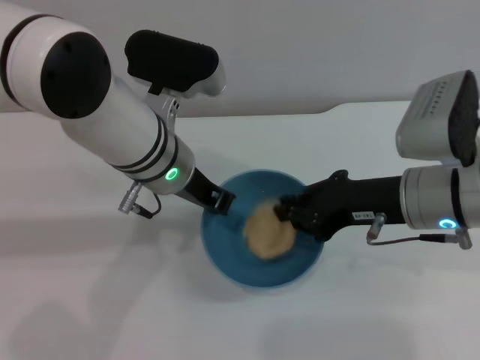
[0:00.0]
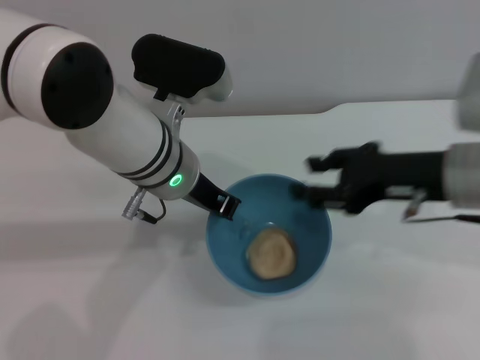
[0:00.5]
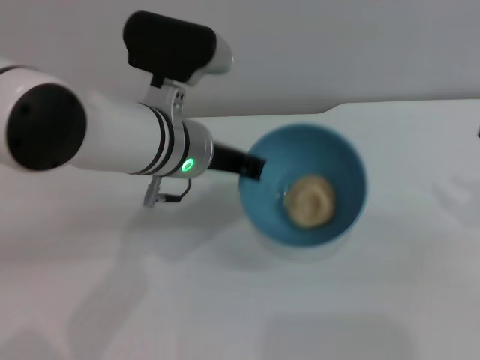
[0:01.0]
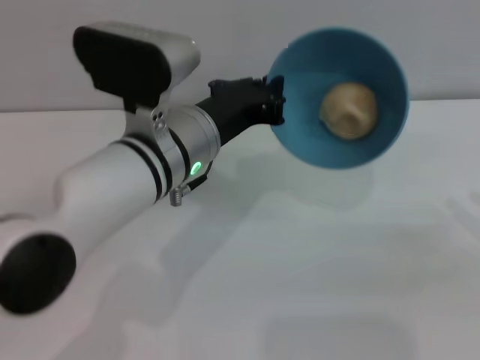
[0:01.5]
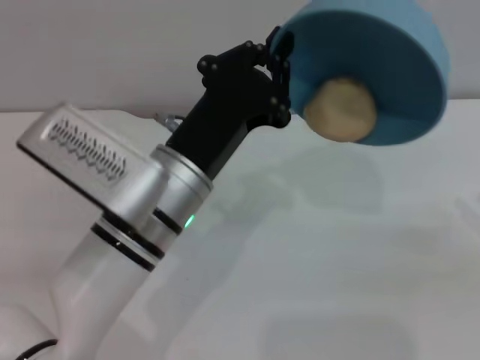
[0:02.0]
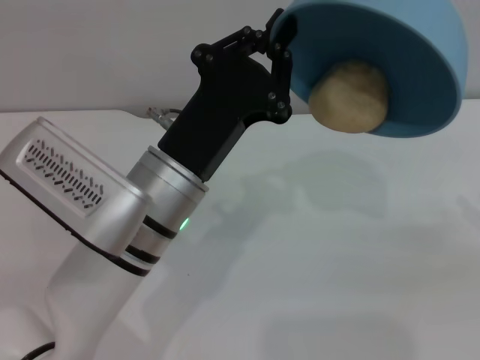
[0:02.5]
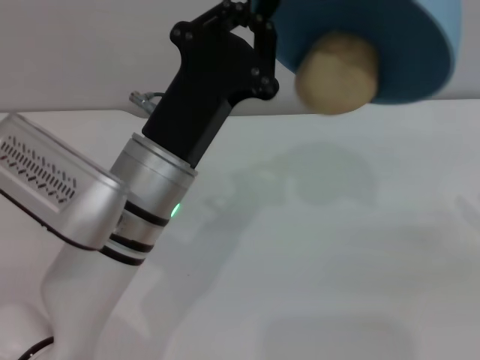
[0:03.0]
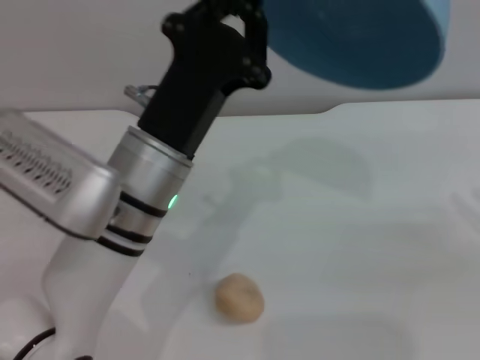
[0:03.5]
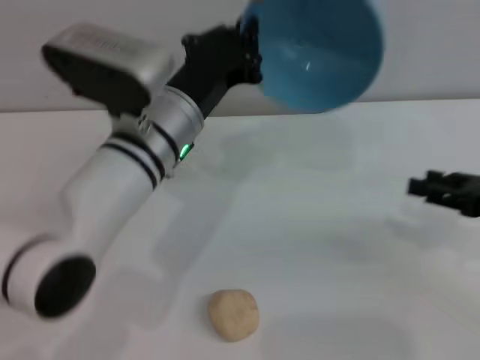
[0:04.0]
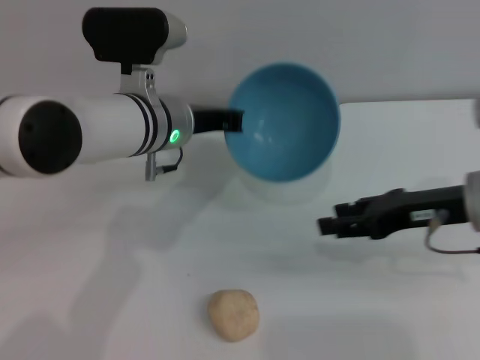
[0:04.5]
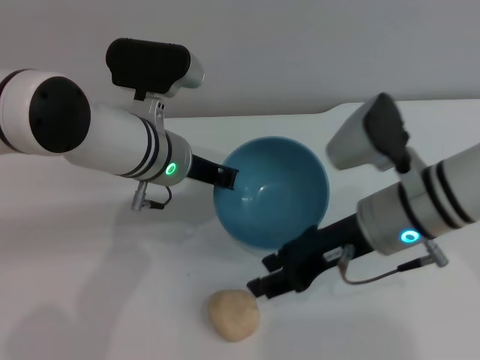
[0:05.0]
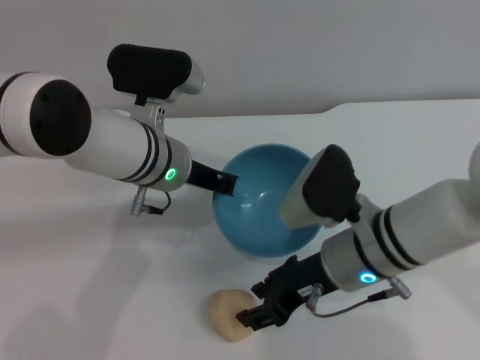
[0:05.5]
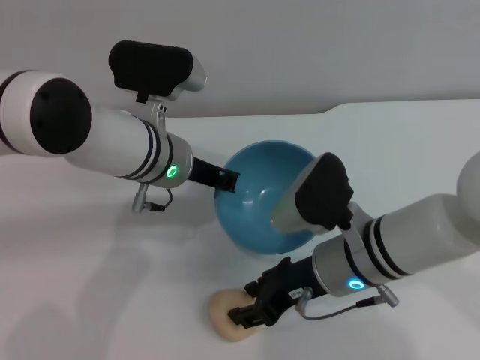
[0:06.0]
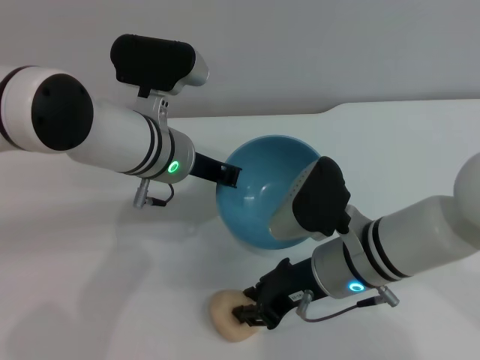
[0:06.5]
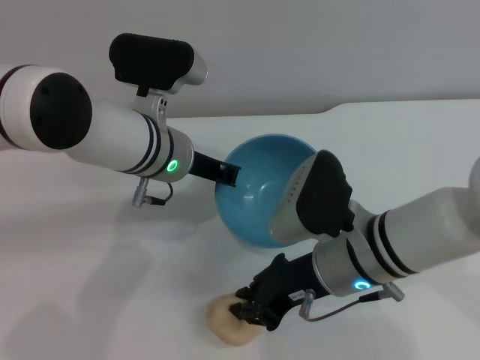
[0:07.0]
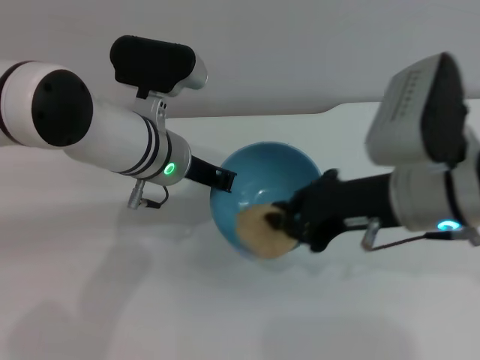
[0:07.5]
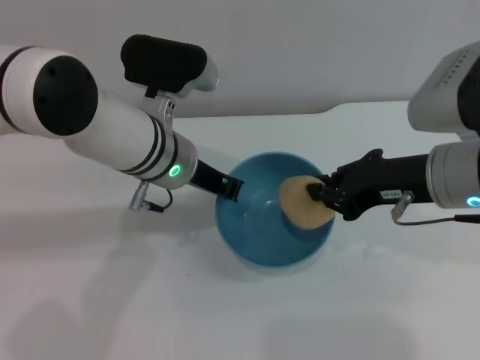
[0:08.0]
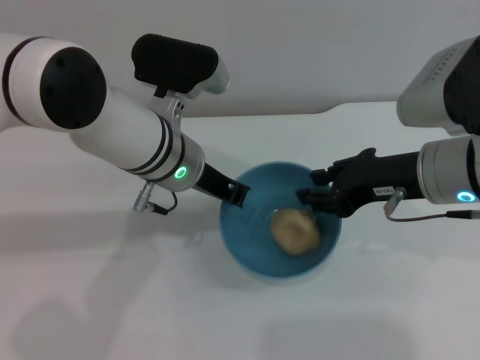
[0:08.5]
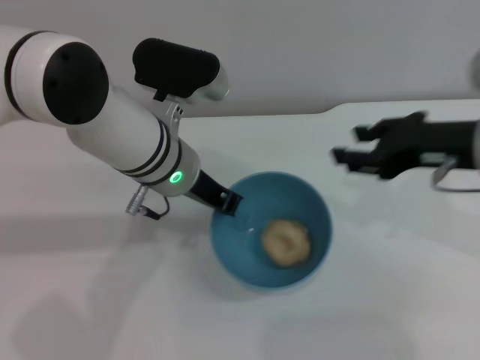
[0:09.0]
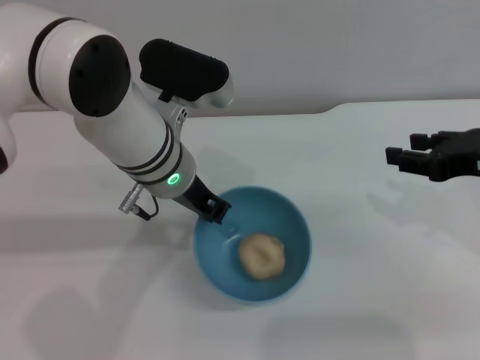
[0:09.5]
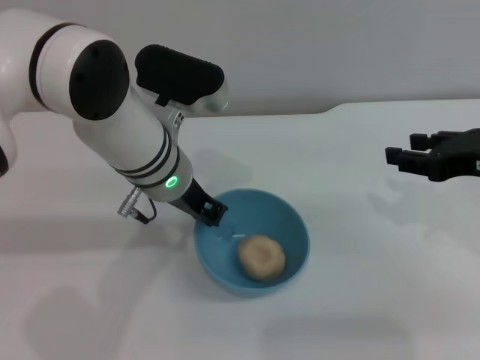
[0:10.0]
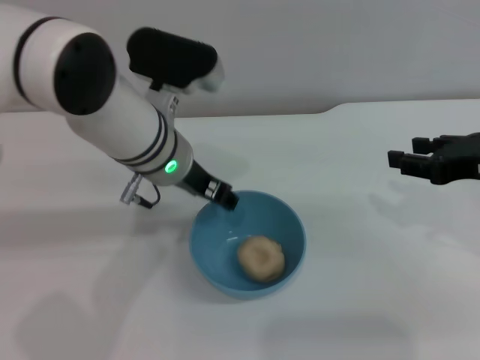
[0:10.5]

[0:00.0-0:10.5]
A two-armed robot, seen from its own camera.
Task of the whole recording: put the egg yolk pastry into the blue bowl and pour it out repeatedly.
Step, 0:00.5 to 0:03.5: Pour the egg yolk pastry out of bowl.
Step, 0:04.0 to 0:07.0: Pick up the egg yolk pastry with the right gripper.
Step, 0:07.5 to 0:08.5: Place the egg yolk pastry into the bowl.
0:00.0 to 0:02.0: The right gripper moves to the right, about 20 cm, and opens; the left gripper is displaced backward by roughly 10 cm.
0:02.0 to 0:04.0: The left gripper is displaced forward by approximately 5 cm, while the right gripper heads to the left, covering some 5 cm.
0:04.0 to 0:06.5: The right gripper shifts roughly 25 cm to the left.
0:06.5 to 0:08.5: The right gripper is displaced upward and to the right by about 15 cm.
0:08.5 to 0:10.5: The right gripper moves to the right, some 10 cm, and opens. Meanwhile the left gripper opens.

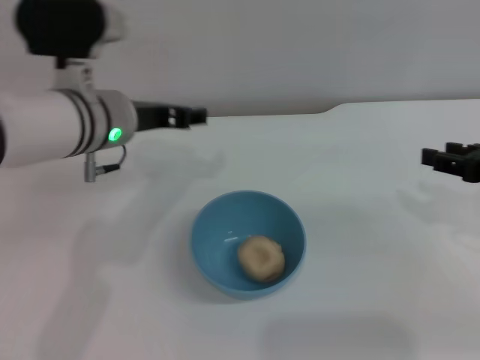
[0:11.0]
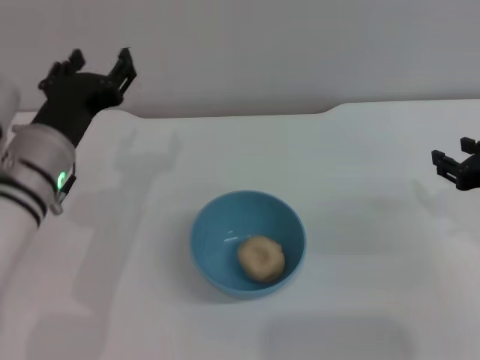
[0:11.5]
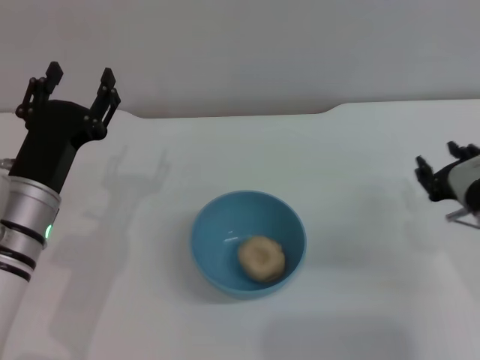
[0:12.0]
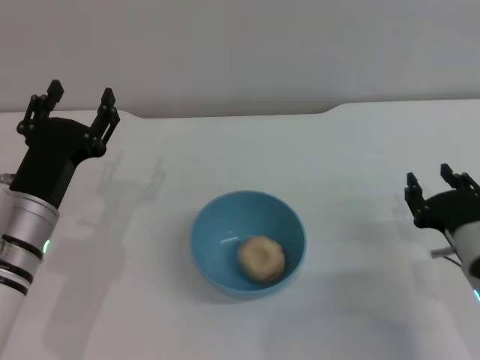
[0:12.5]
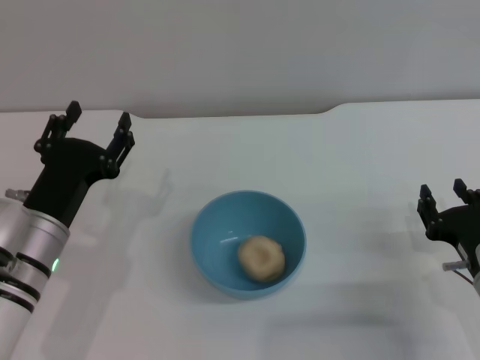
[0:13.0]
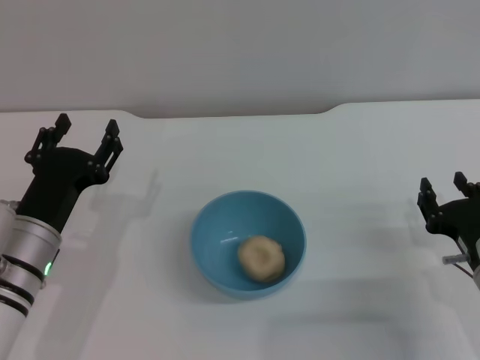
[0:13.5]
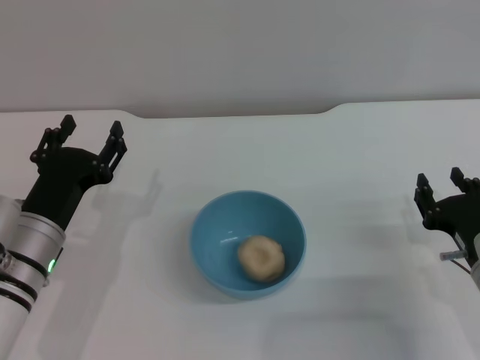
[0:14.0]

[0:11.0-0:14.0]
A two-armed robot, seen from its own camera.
Task of the whole recording: put the egg yolk pastry into the blue bowl and pour it out repeatedly.
0:11.0 to 0:12.5: The right gripper shifts approximately 15 cm downward and to the left. Meanwhile the left gripper moves backward, downward and to the left, some 15 cm.
0:12.5 to 0:14.0: The grippers move only a little.
